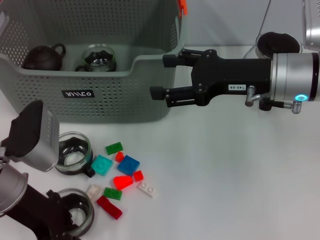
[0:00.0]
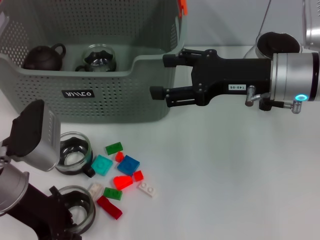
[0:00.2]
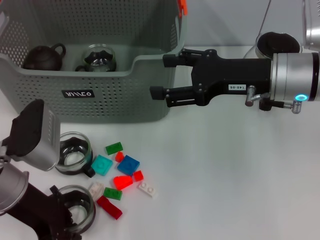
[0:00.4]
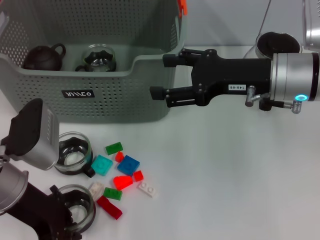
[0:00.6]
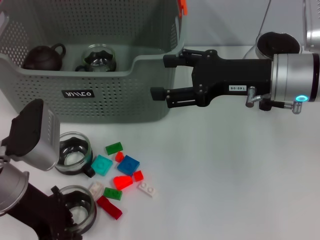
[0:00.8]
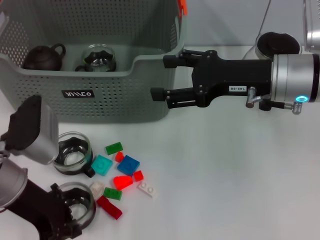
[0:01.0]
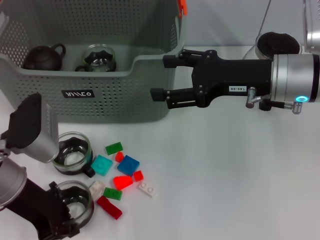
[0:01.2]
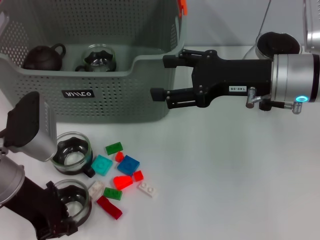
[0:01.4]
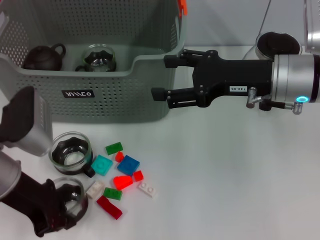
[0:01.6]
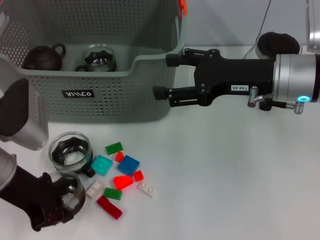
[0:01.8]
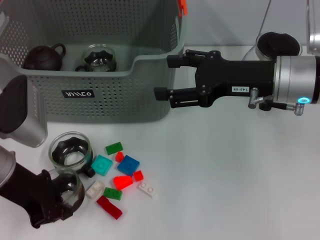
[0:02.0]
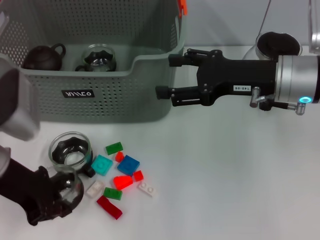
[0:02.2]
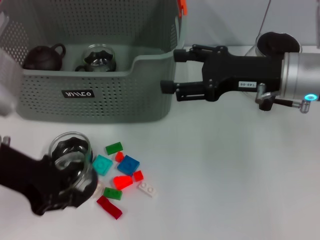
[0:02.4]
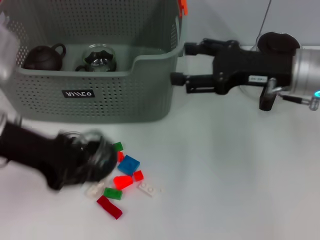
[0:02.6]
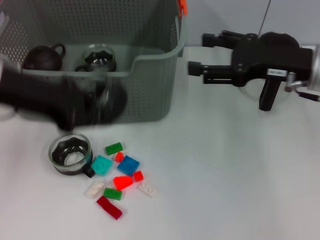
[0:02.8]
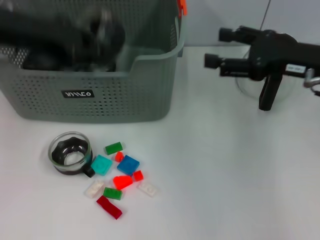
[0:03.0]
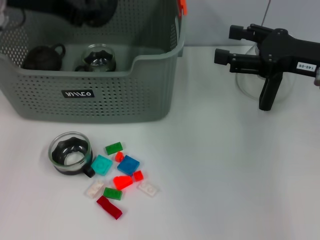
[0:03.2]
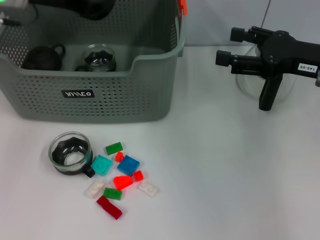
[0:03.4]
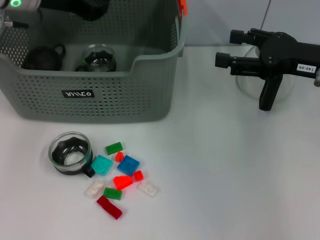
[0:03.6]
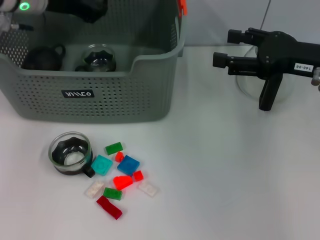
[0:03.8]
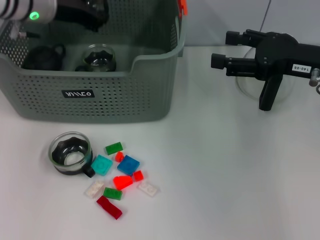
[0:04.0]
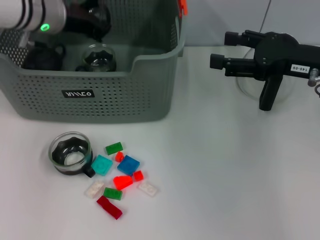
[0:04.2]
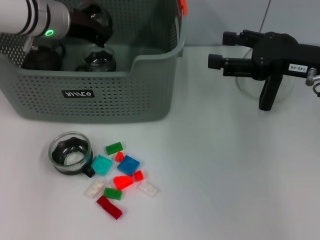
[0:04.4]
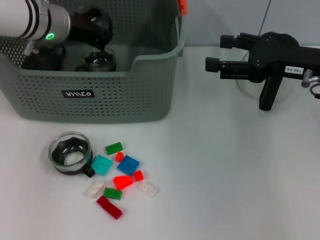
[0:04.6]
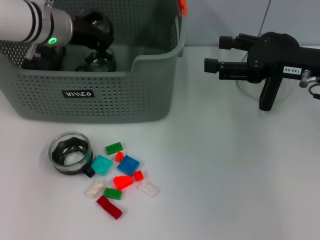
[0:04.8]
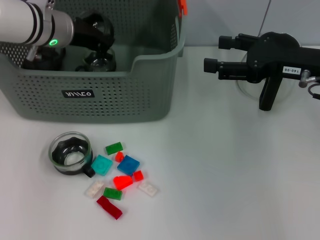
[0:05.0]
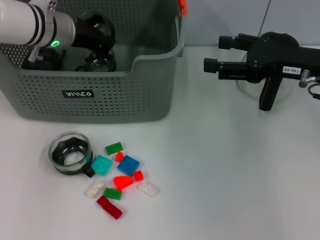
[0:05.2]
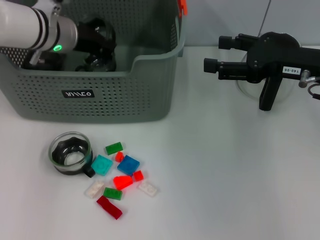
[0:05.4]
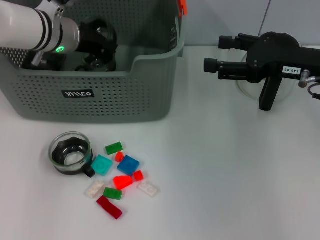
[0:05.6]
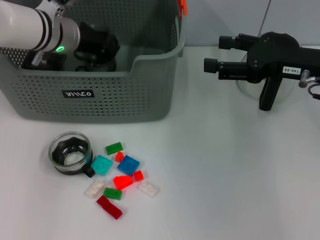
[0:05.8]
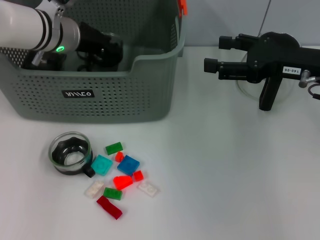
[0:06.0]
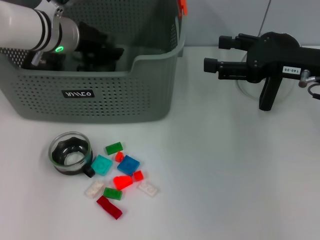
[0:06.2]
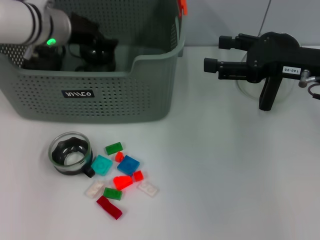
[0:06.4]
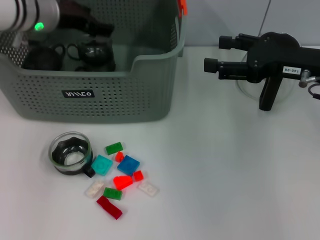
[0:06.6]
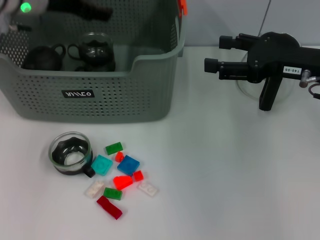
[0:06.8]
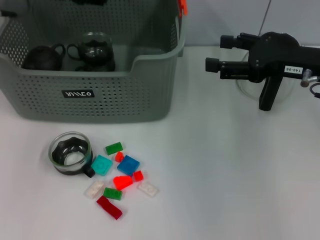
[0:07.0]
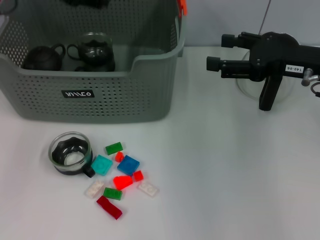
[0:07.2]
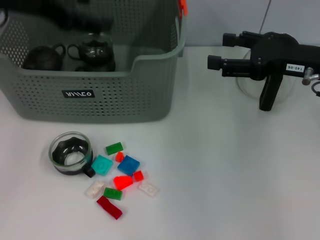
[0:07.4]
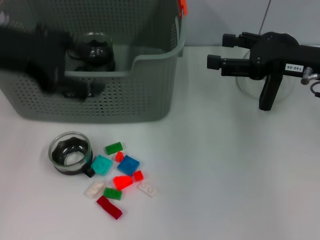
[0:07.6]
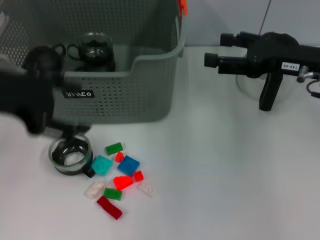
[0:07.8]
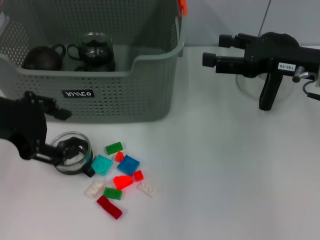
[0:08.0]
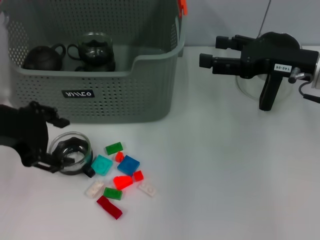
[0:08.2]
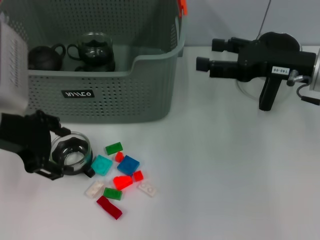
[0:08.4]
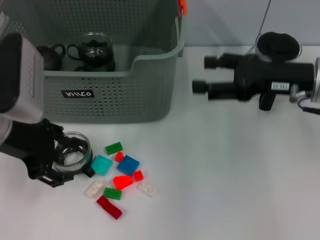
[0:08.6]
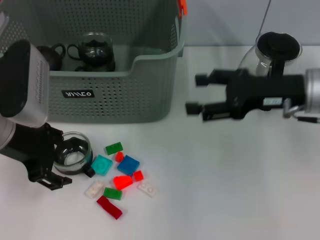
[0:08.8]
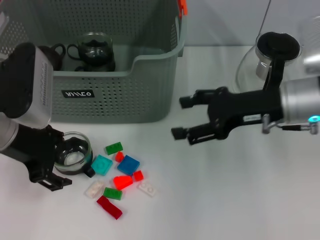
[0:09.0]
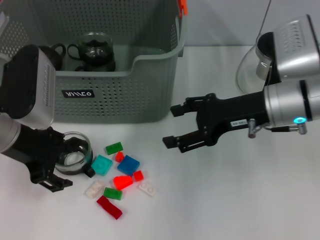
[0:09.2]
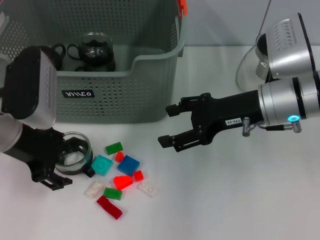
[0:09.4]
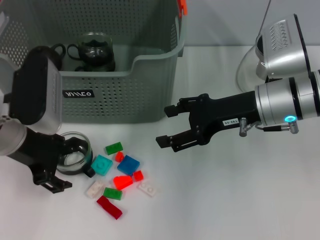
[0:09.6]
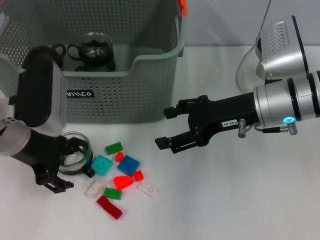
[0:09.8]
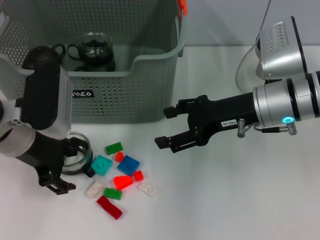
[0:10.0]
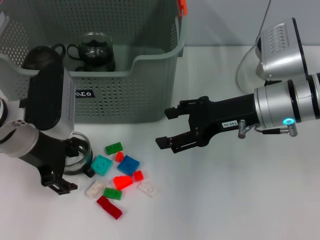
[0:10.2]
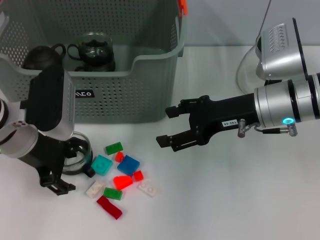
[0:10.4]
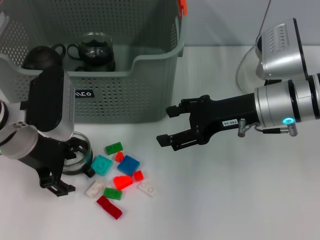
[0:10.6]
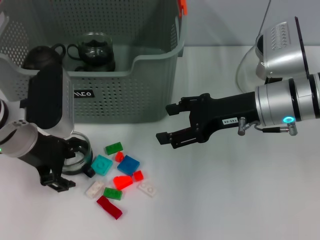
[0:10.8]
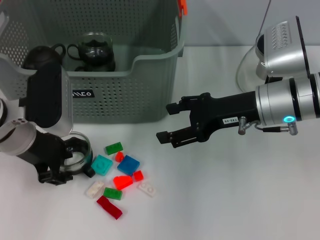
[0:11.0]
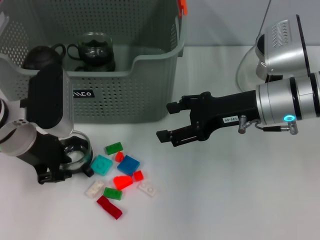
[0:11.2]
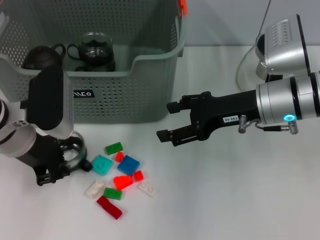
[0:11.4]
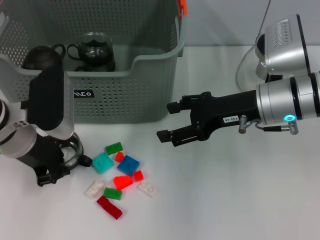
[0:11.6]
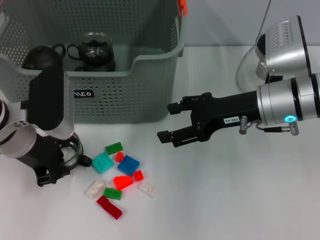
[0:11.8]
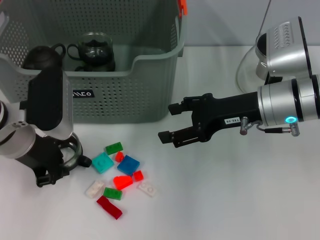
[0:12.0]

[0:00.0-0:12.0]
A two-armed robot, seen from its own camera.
Task of the whole recording: pick up the teacup on the table and place it into the storage bin, pick up the block on the table and place it into the storage bin.
Step, 0:00.4 to 0:06.6: Place the cup in the storage box with left gripper.
Step, 0:07.0 to 0:11.4: Grasp the cup with left gripper.
0:00.0 to 0:01.6: The left gripper closes up.
0:01.6 to 0:03.0: The right gripper is displaced to the right by approximately 5 cm, while the left gripper is displaced upward and forward by about 15 cm.
0:03.0 to 0:04.4: The left gripper goes roughly 15 cm forward and downward.
0:04.4 to 0:06.0: There are only small adjustments of the grippers.
0:06.0 to 0:07.6: The left gripper goes roughly 20 cm backward, upward and to the left, and opens up.
0:07.6 to 0:09.0: The left gripper travels downward by approximately 10 cm; the right gripper moves to the left, some 5 cm.
0:09.0 to 0:10.4: There are only small adjustments of the grippers.
0:10.4 to 0:12.0: The left gripper closes its fingers.

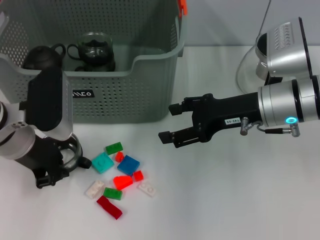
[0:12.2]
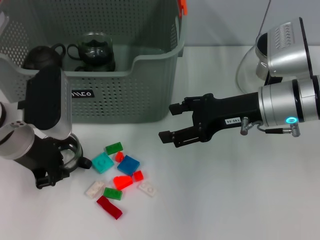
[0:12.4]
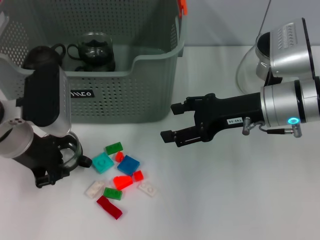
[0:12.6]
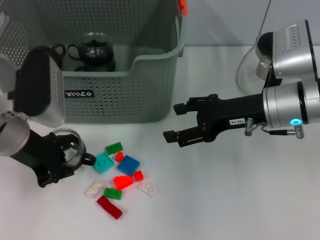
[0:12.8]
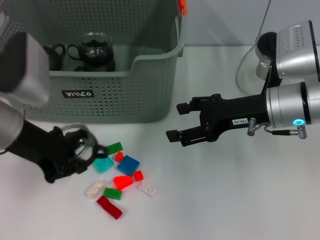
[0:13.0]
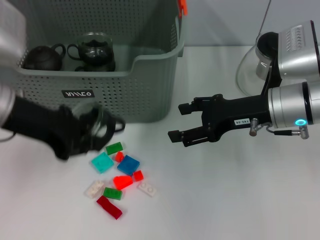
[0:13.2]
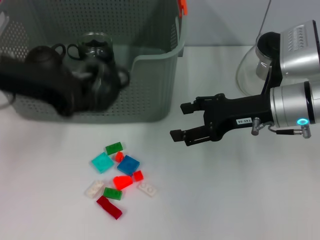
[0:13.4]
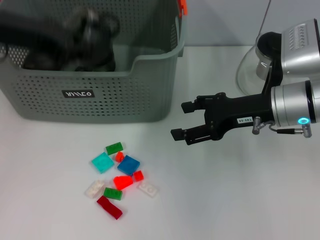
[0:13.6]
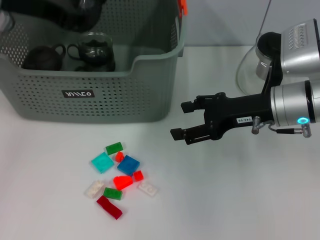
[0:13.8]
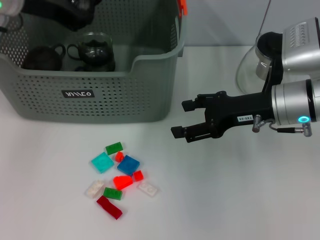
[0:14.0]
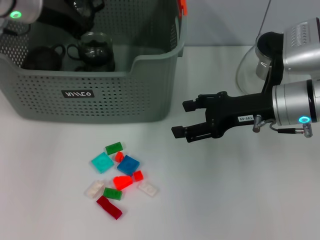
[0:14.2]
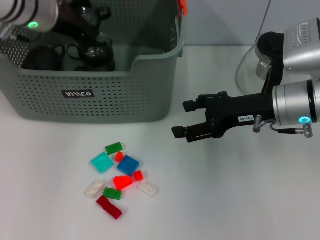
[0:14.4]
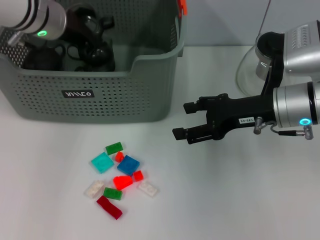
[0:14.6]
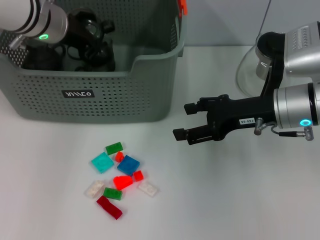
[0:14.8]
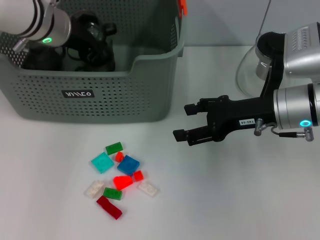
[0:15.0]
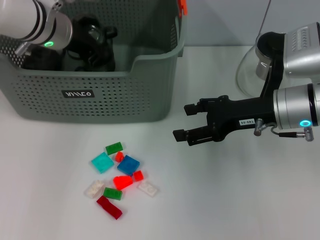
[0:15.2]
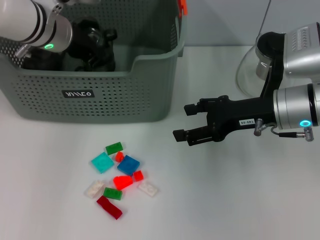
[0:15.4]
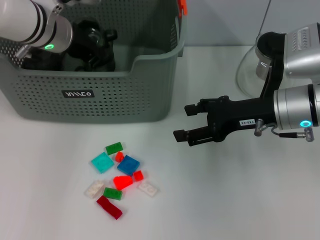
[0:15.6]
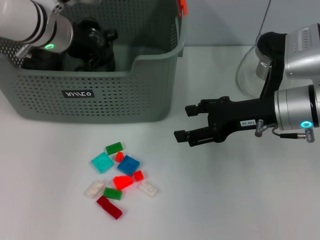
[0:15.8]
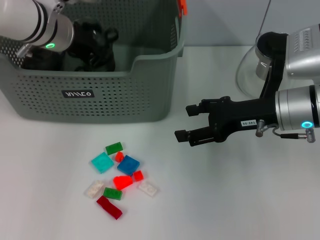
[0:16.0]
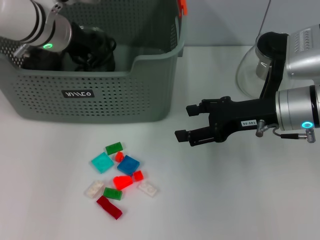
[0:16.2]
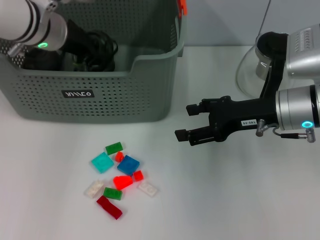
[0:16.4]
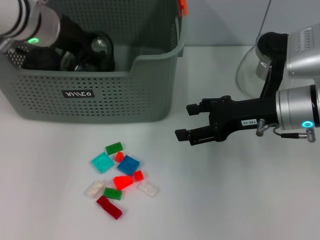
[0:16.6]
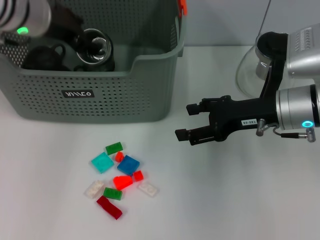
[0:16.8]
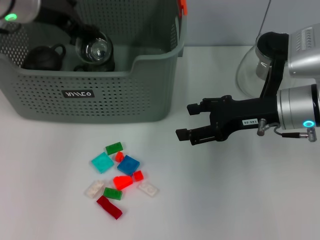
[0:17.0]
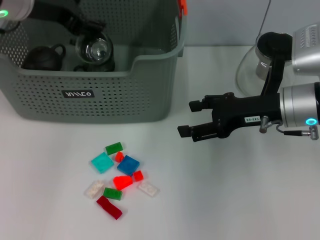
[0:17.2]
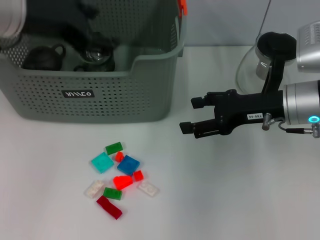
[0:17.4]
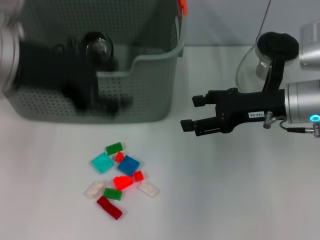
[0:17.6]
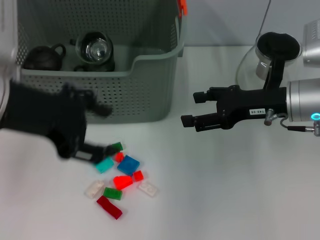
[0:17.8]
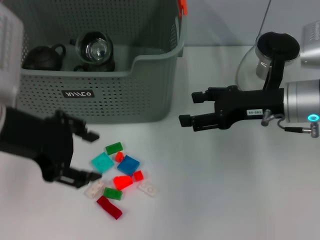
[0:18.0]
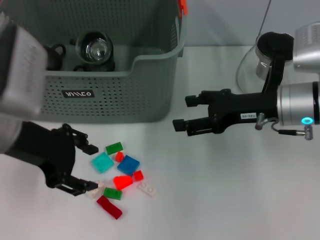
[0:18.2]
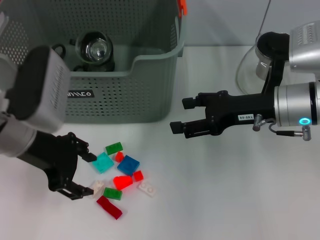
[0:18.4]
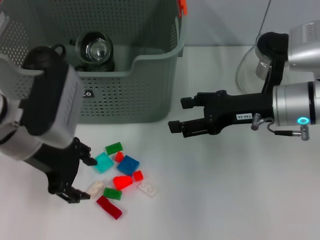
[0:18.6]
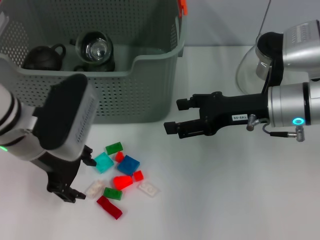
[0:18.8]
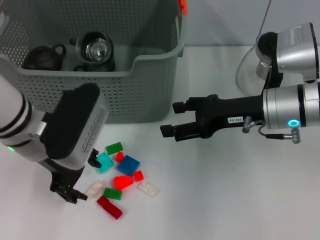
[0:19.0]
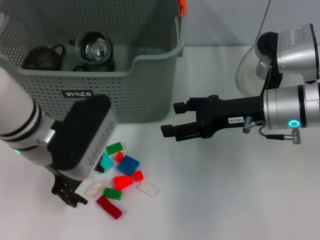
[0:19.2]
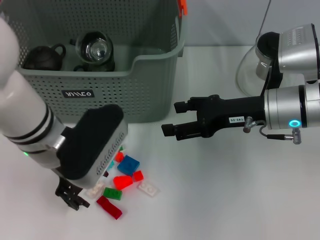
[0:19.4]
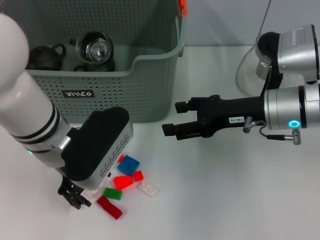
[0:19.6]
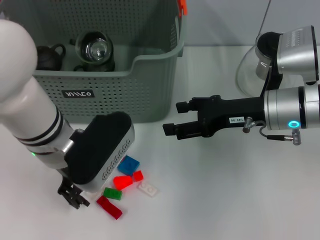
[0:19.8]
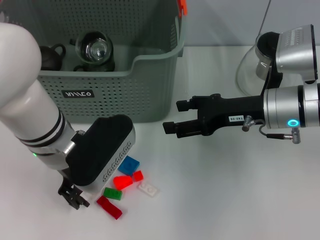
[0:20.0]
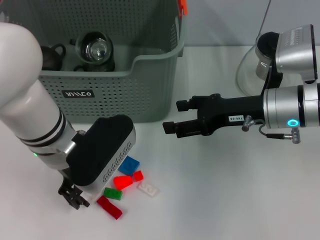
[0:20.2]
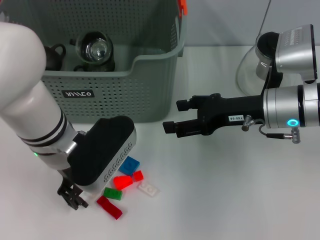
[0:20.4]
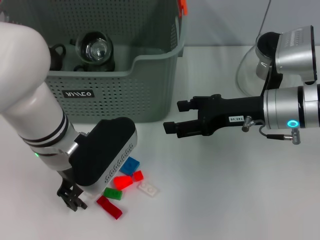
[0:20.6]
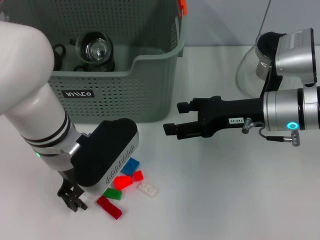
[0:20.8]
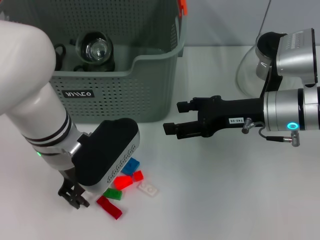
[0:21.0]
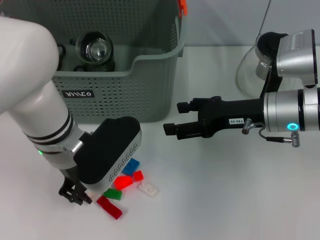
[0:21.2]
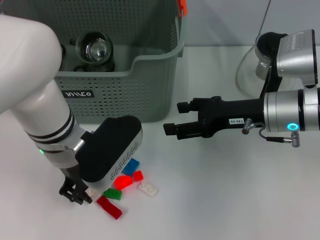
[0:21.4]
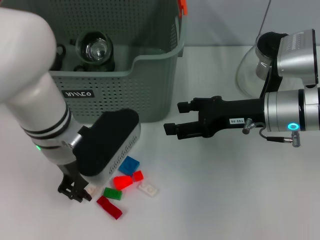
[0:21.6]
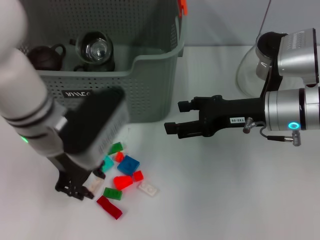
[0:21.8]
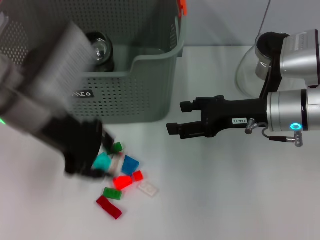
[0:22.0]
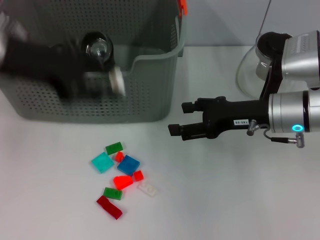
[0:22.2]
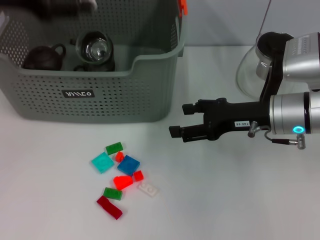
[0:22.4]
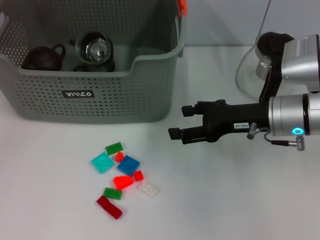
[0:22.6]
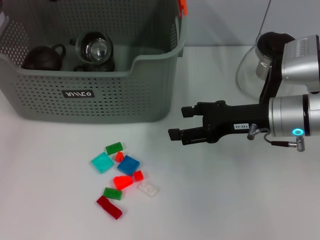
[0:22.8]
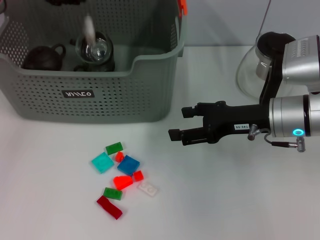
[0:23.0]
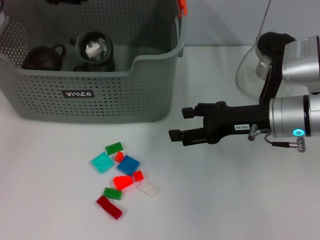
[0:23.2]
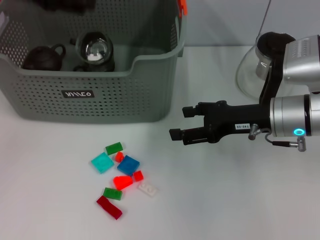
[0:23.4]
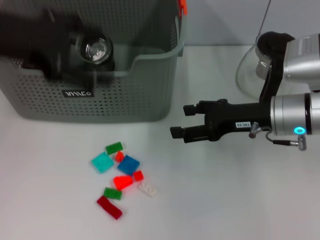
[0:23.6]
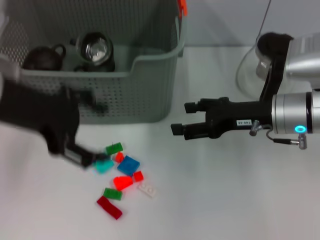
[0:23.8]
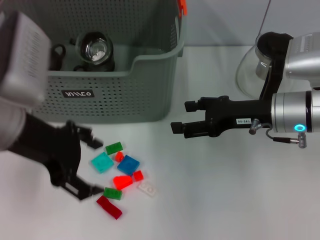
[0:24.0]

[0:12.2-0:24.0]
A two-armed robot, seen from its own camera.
Task of the whole recording: pick up the teacup on the table and place it into the storage bin, pick up the block on the table and place it into the storage bin.
Step, 0:12.2 to 0:17.0: Place the cup in the storage box with left gripper.
Step, 0:17.4 to 0:21.4: Grasp the white block with left gripper.
Step, 0:21.6 to 0:23.2: Place the white block in the storage box with left gripper.
0:12.2 to 0:13.6: The left gripper travels upward by some 15 cm.
0:13.6 to 0:15.2: The left gripper shifts some 15 cm downward, forward and to the right.
0:15.2 to 0:16.6: The left gripper opens up.
0:16.6 to 0:18.2: The left gripper heads backward, covering approximately 15 cm.
0:18.2 to 0:19.6: The left gripper moves to the right, approximately 5 cm.
0:19.6 to 0:21.0: There are only small adjustments of the grippers.
0:21.0 to 0:22.6: The left gripper shifts about 25 cm upward, to the left and forward.
0:22.6 to 0:24.0: The left gripper heads backward, to the right and downward, covering about 15 cm, and opens.
